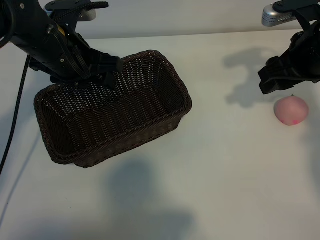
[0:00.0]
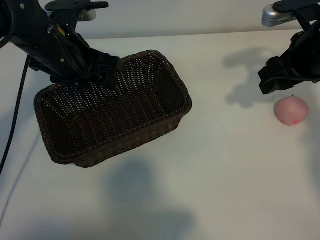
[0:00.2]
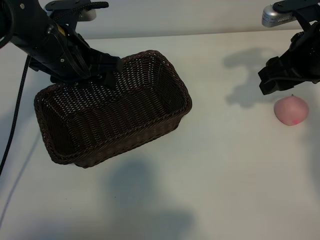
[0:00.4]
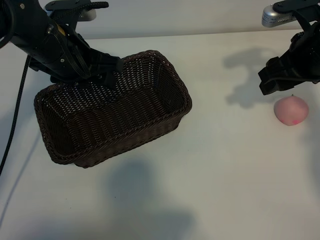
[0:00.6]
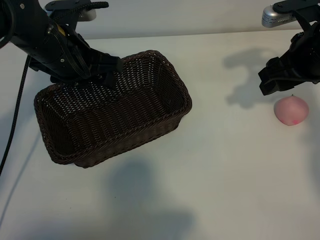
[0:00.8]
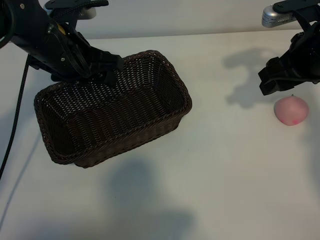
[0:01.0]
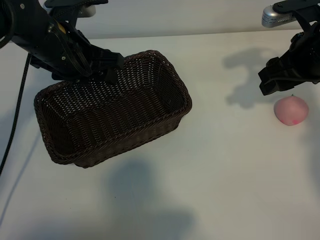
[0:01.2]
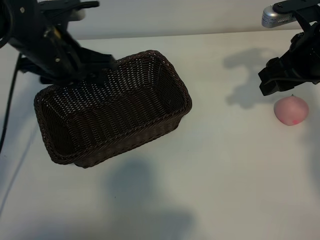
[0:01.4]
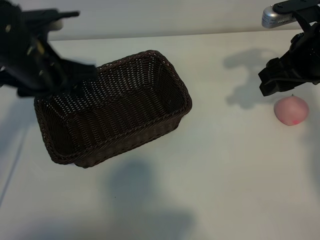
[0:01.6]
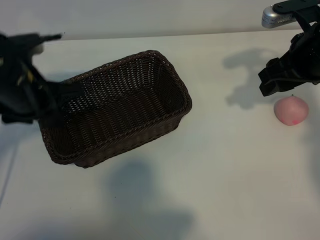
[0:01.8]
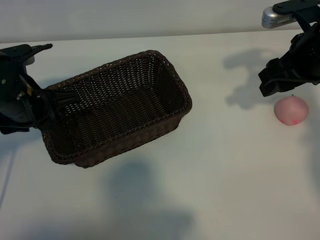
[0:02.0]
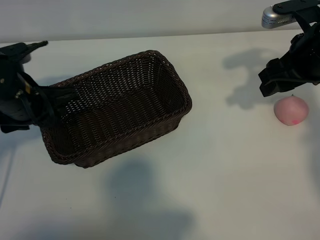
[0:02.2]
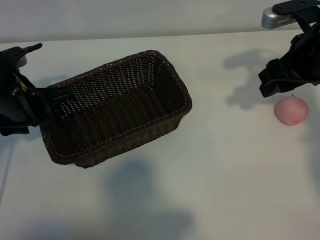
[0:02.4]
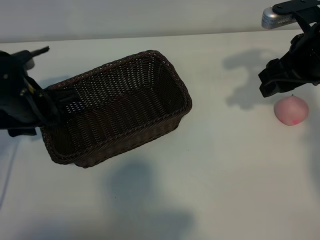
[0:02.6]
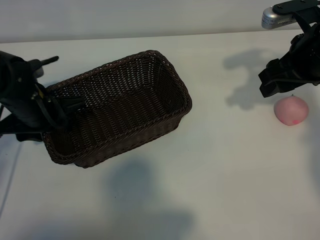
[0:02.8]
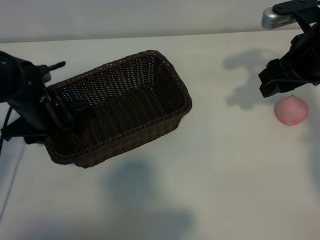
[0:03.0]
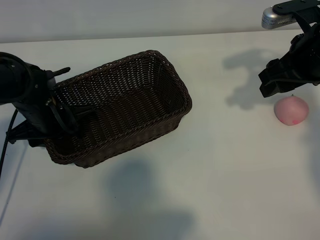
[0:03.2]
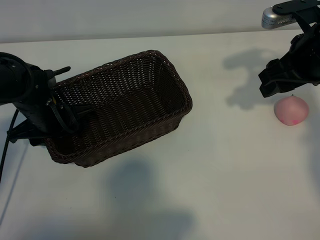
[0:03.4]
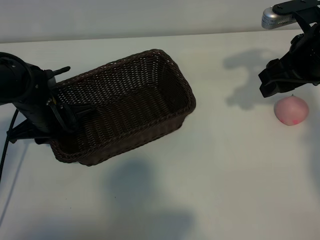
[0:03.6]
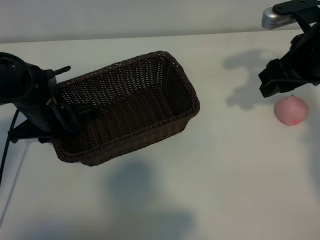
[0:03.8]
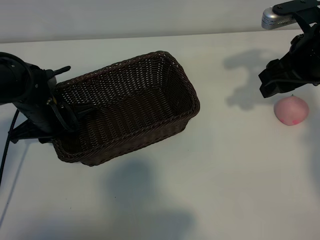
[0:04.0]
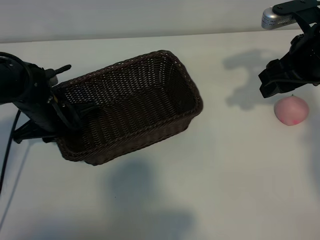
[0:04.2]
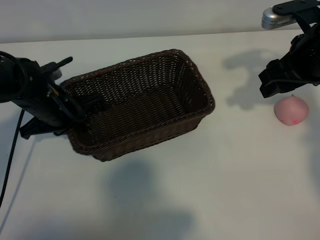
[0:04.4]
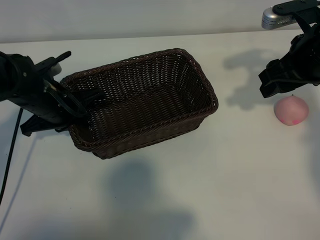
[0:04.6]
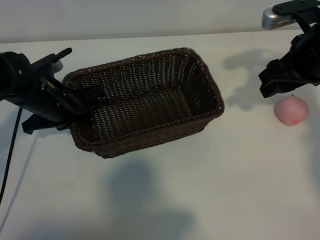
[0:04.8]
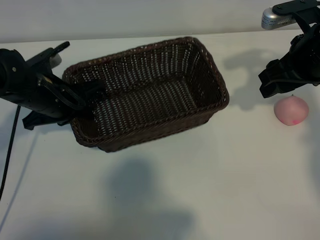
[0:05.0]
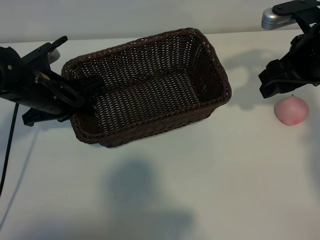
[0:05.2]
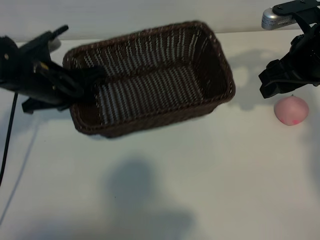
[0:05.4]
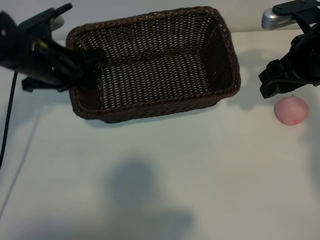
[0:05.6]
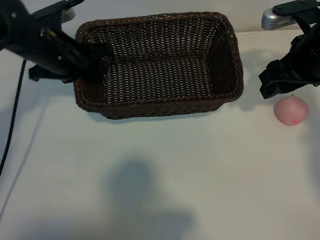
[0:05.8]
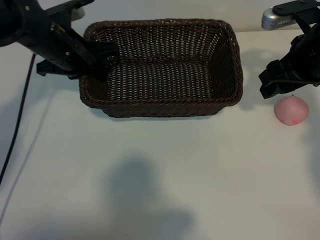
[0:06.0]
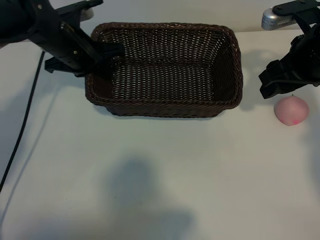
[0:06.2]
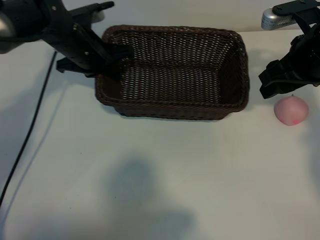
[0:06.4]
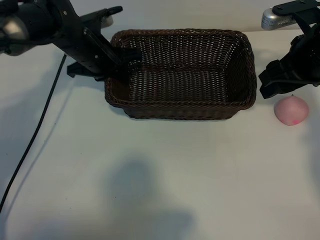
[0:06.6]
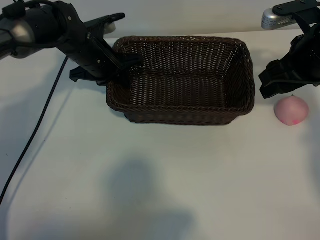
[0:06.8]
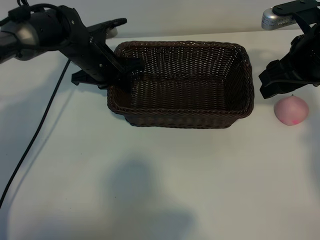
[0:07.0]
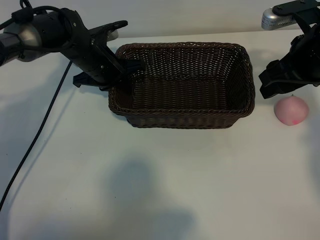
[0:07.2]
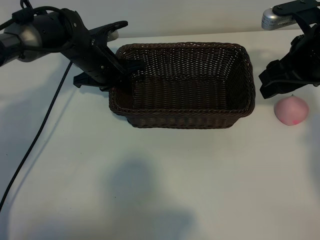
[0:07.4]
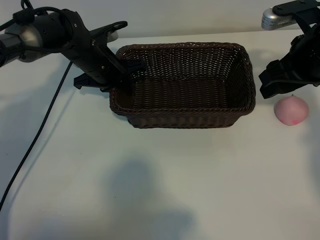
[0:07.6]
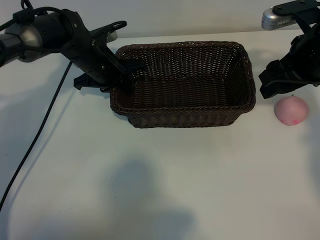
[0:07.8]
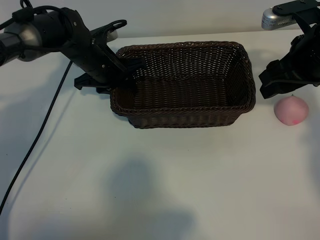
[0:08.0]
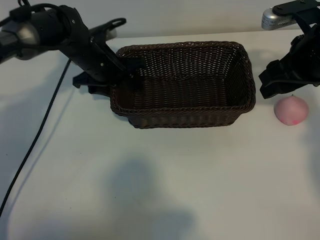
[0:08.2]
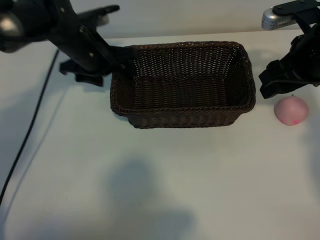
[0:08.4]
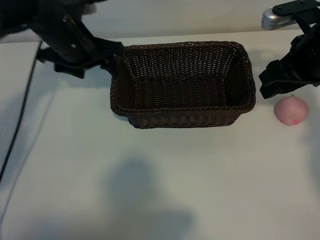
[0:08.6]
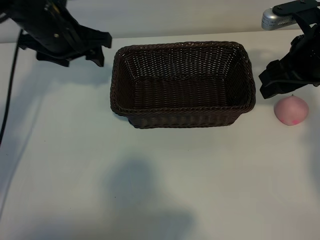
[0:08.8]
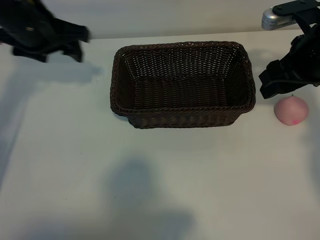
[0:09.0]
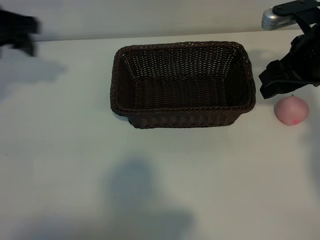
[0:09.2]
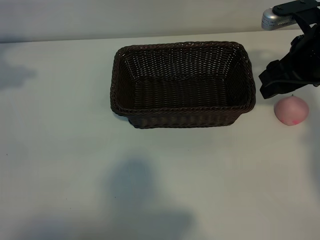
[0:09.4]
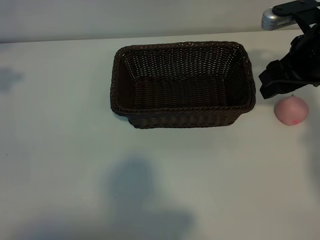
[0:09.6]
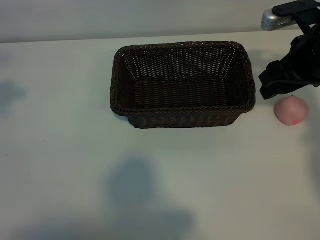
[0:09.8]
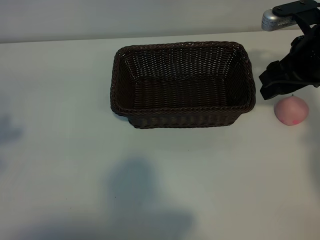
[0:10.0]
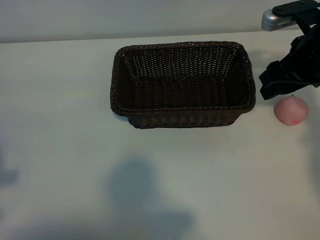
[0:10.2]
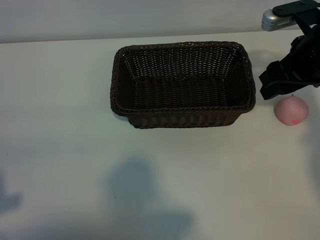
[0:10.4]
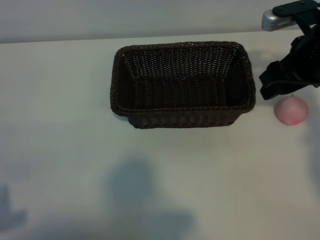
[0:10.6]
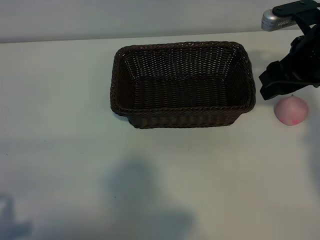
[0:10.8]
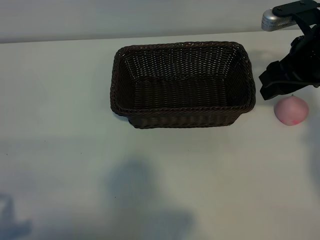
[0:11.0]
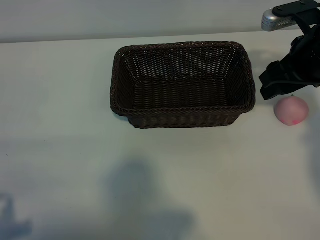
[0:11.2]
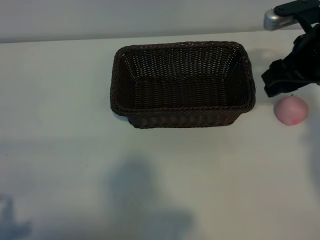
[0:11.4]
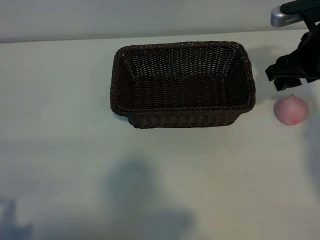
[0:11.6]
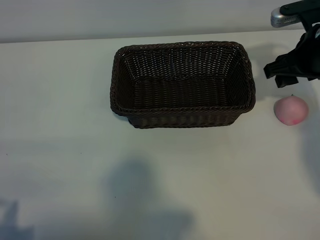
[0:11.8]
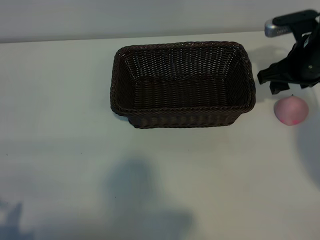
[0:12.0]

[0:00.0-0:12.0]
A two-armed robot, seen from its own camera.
Task of the whole recording: pick up the peach and put it into the basket.
Step, 0:01.0 to 0:04.0: Grasp the basket with left gripper.
Step, 0:04.2 to 0:08.4: Place the basket in the center of view with left gripper.

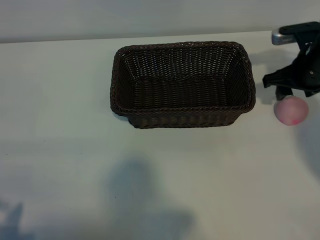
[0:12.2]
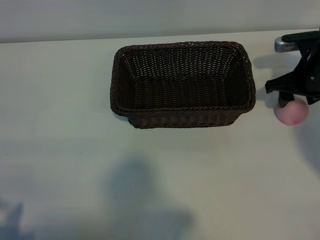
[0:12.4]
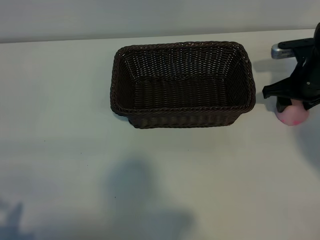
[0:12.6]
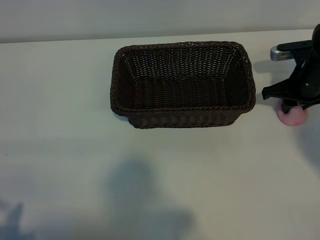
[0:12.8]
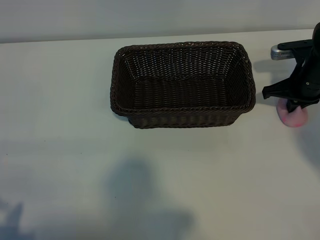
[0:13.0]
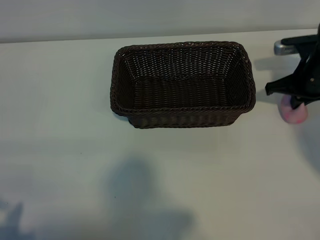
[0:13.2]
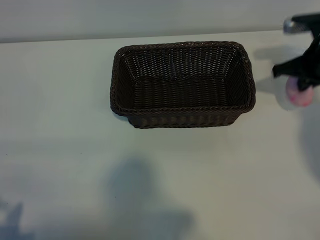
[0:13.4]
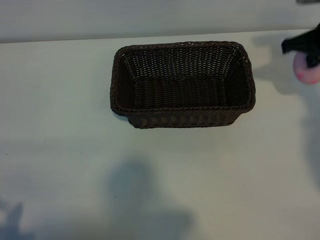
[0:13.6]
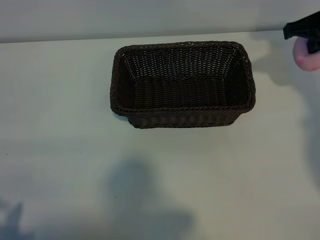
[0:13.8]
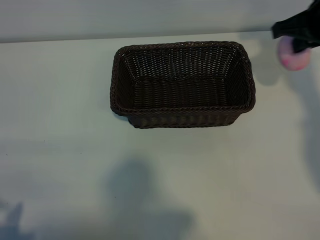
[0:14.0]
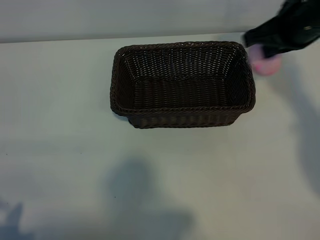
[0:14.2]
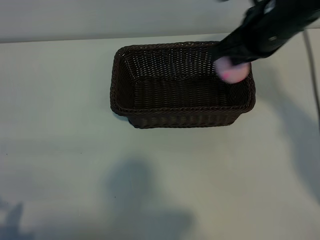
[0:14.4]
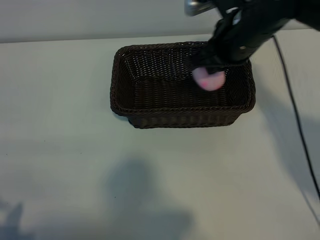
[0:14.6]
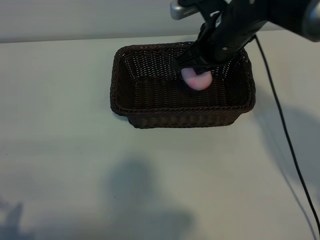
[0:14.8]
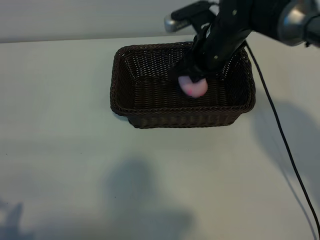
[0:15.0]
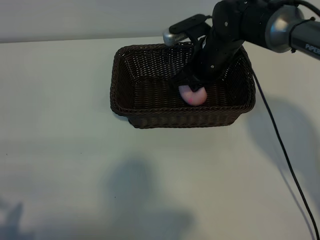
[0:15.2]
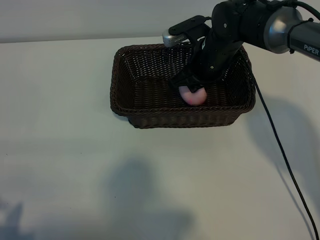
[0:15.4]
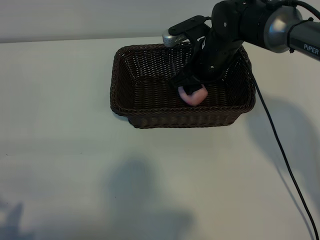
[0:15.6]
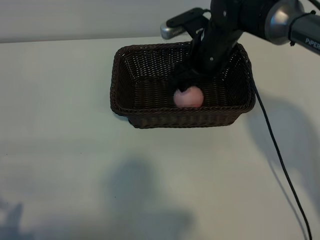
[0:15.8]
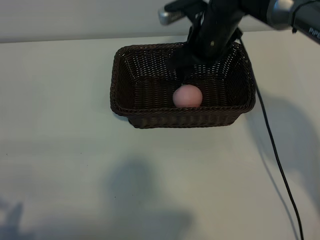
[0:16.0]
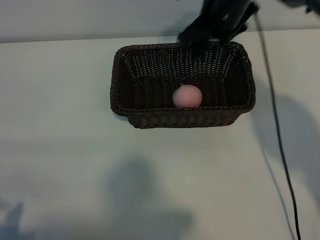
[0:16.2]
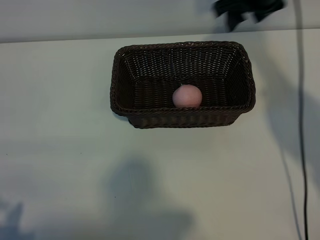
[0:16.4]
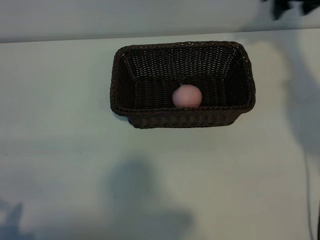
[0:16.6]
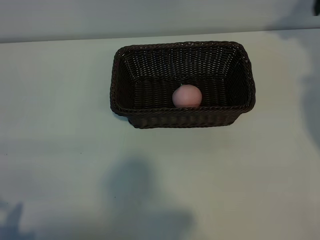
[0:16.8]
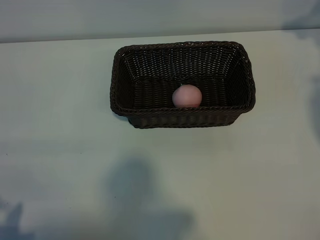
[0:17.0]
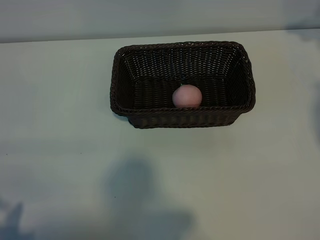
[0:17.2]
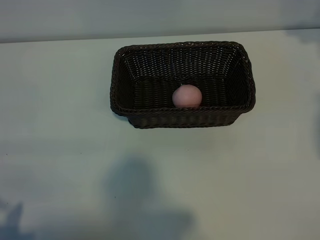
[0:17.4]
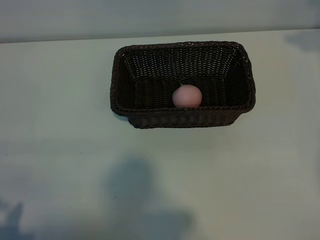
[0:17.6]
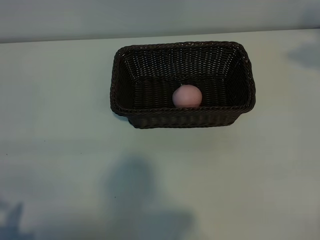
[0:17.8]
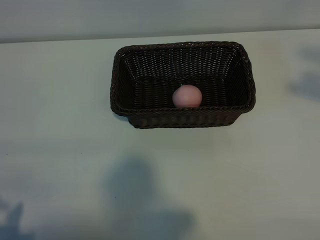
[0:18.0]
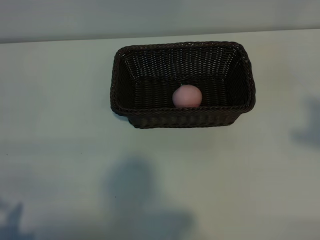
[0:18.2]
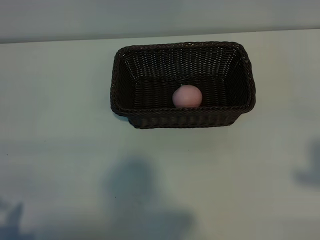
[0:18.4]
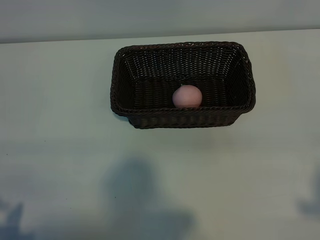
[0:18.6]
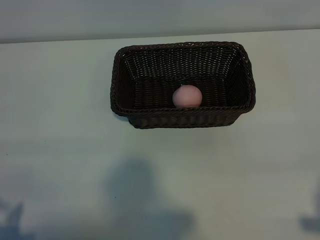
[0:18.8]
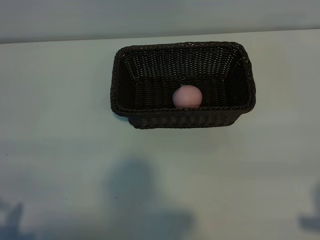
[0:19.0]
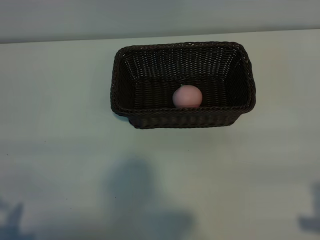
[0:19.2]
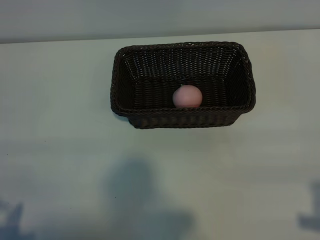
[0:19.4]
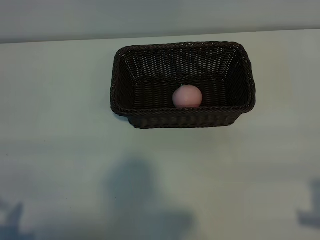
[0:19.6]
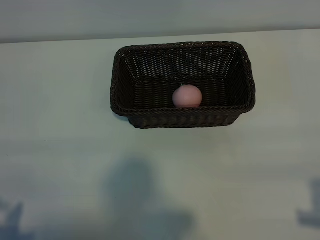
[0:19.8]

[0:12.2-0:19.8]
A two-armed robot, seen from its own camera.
Task of the whole recording: pick up the peach and put it into the basket.
Step, 0:13.2 to 0:15.8: Place the peach in the basket with right gripper.

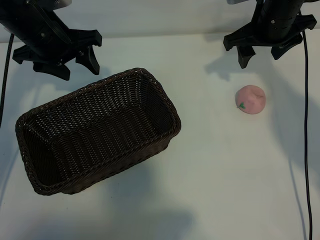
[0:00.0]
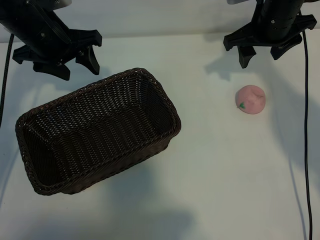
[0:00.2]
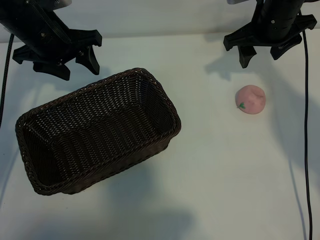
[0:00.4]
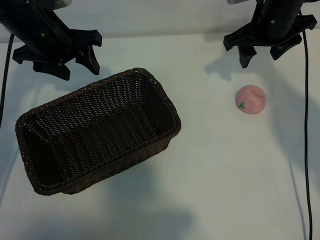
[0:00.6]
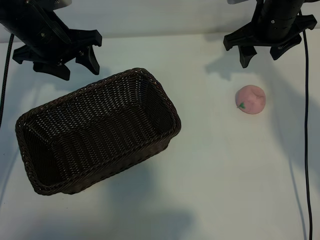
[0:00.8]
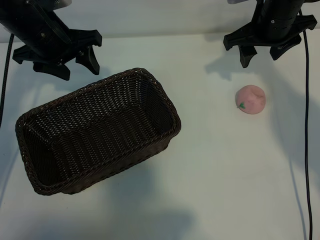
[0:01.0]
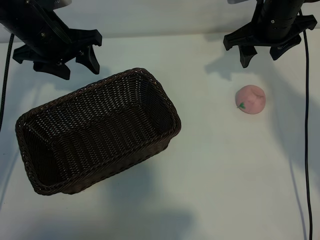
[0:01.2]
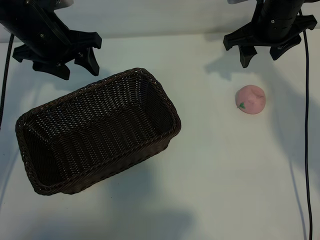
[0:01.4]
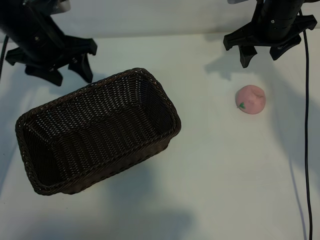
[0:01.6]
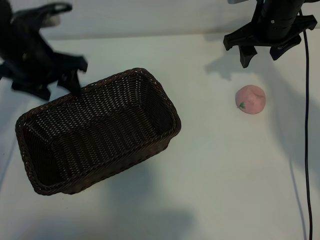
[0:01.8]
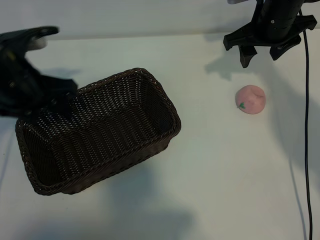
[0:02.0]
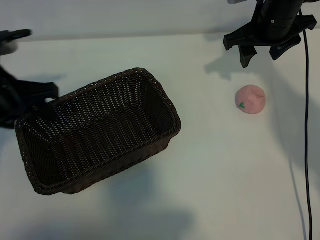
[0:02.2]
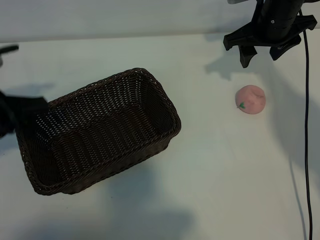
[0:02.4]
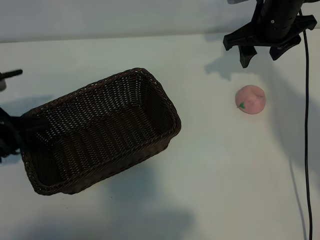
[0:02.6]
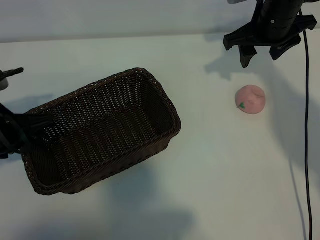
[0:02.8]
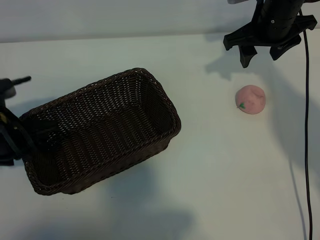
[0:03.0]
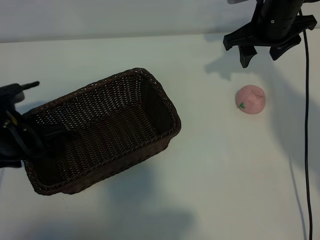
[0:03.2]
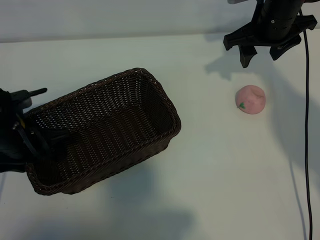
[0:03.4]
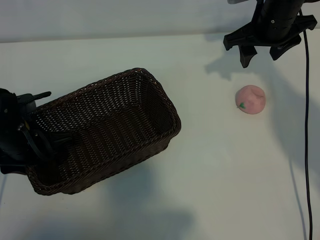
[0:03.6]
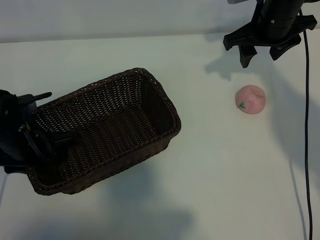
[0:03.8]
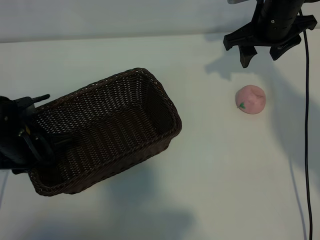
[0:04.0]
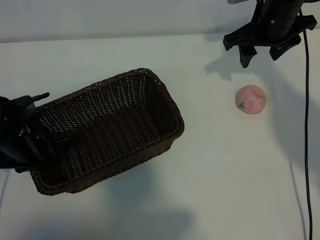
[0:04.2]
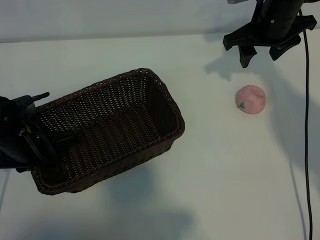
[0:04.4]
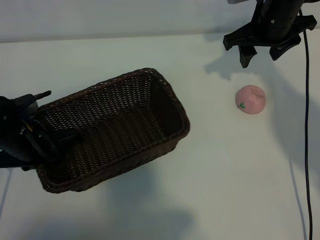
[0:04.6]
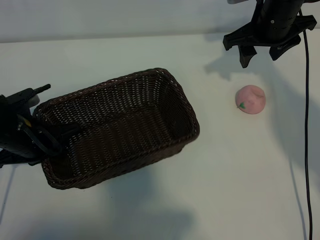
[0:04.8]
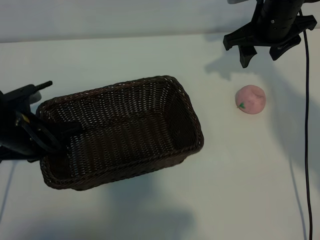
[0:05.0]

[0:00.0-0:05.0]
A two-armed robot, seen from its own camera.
Task of the whole recording: pick up the peach and put it into the basket.
Step, 0:01.4 to 0:04.0: Grasp the basket with left gripper.
